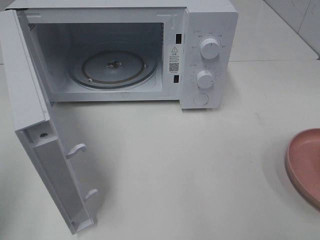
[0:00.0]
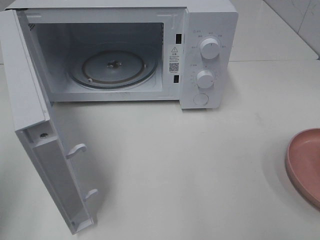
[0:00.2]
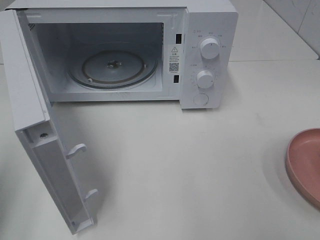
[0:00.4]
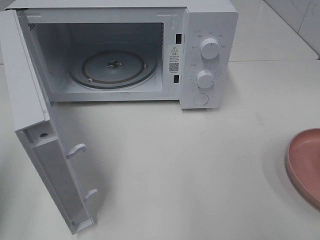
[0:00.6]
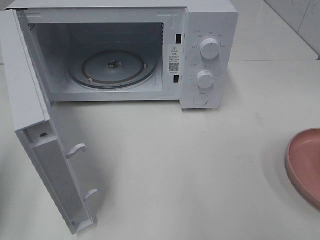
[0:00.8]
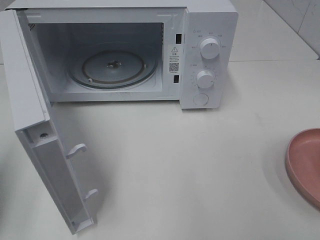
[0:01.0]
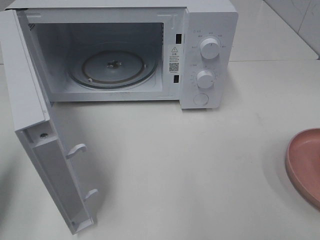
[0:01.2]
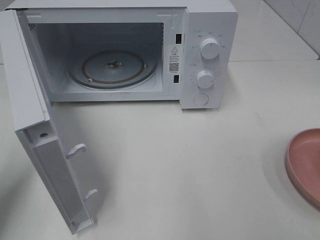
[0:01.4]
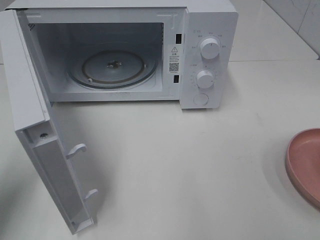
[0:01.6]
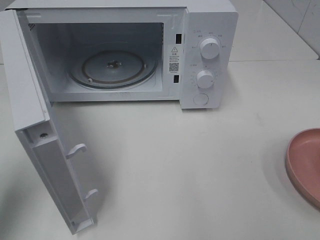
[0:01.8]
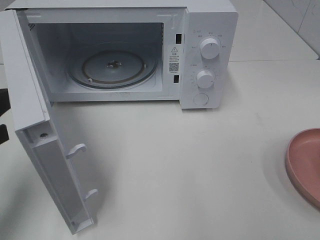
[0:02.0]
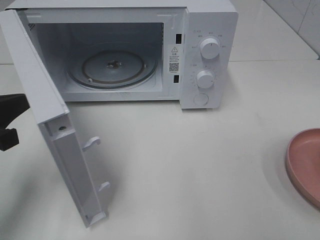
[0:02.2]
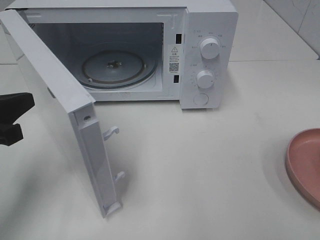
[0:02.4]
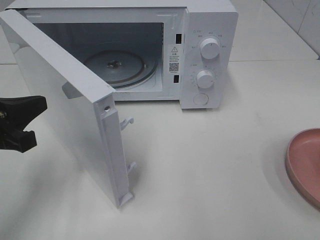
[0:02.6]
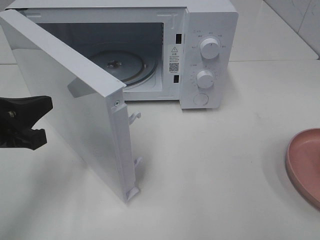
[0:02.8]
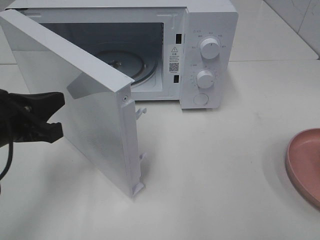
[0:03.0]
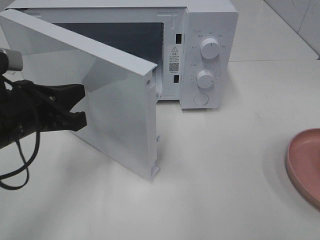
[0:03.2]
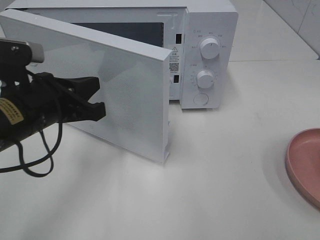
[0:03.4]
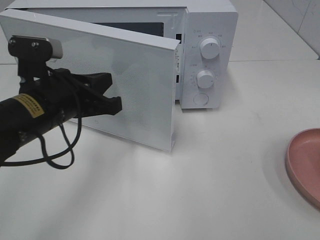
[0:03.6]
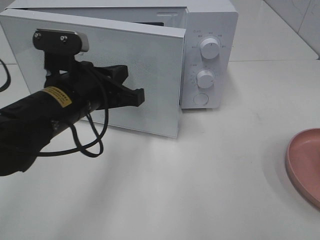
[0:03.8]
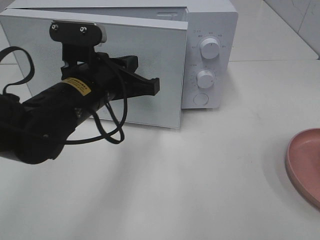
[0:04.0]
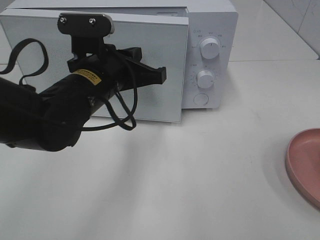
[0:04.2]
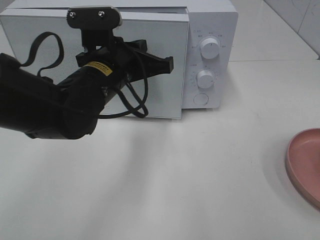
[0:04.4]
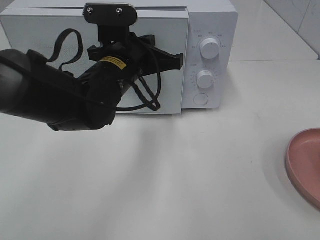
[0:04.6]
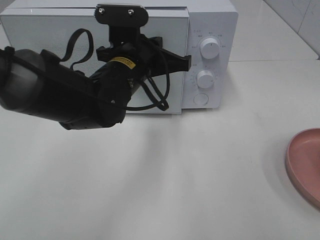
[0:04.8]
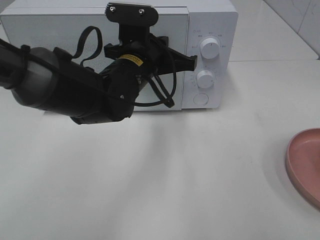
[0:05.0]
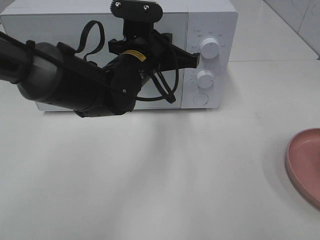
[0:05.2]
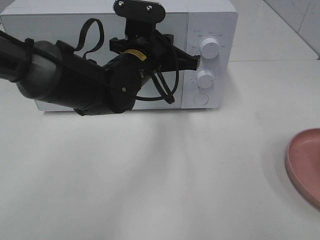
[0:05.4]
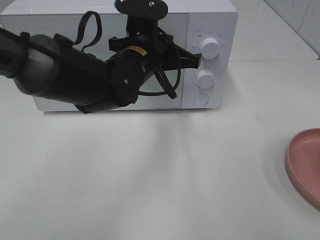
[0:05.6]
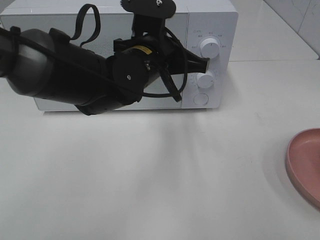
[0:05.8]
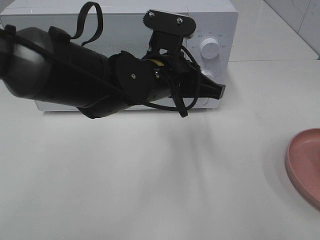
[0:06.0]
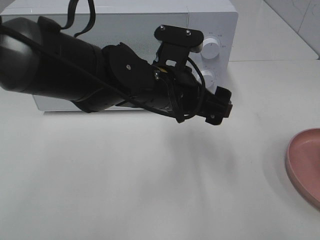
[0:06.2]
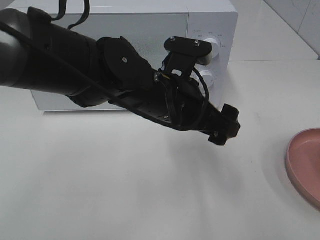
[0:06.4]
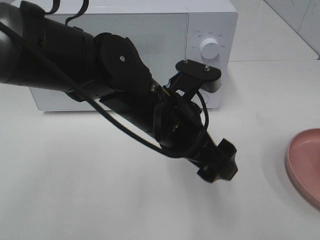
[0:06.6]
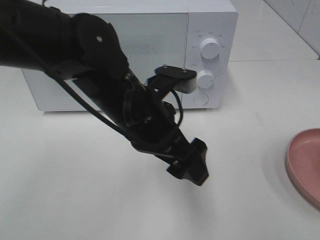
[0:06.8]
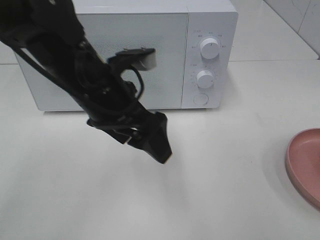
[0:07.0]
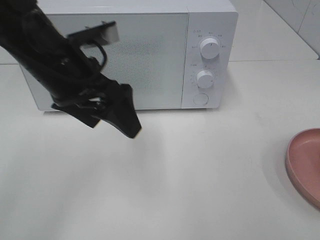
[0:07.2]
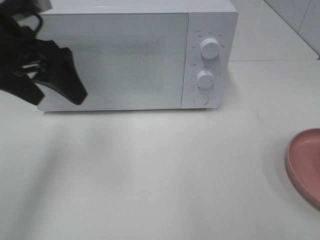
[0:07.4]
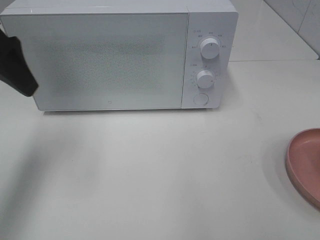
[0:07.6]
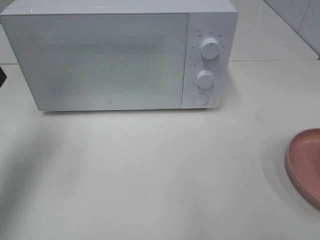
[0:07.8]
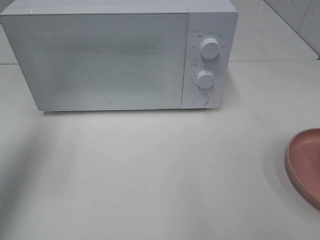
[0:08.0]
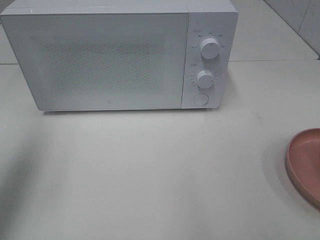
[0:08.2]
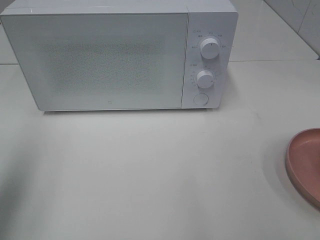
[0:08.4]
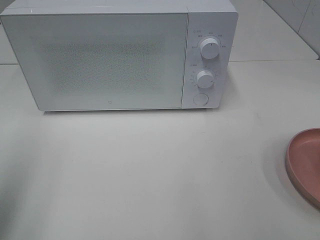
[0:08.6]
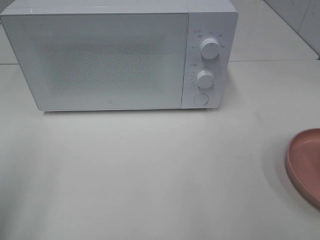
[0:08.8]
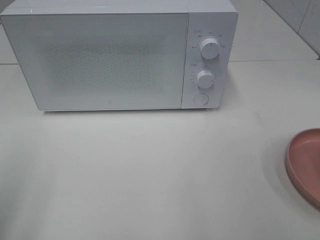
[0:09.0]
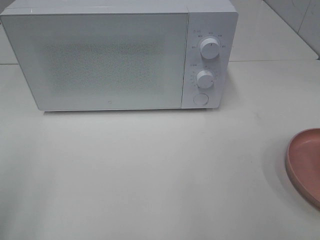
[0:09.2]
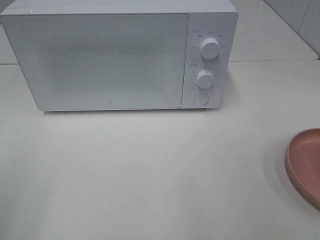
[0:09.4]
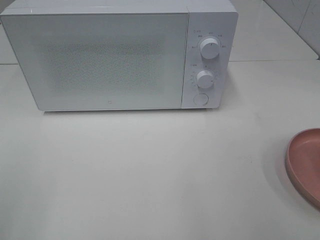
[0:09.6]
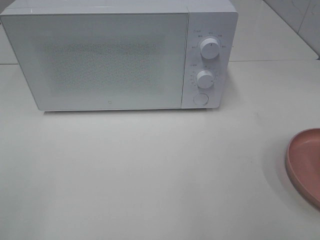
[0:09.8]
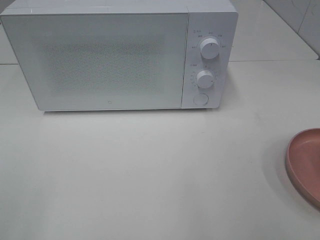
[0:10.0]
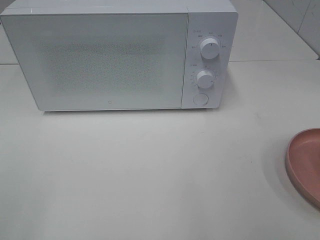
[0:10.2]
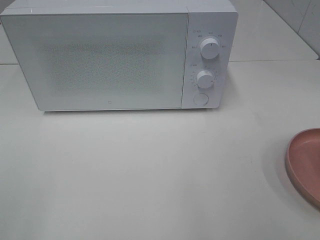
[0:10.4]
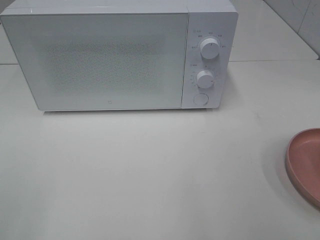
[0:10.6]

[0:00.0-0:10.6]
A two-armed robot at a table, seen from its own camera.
Task of the whole recording: Heat the burger.
Step, 0:00.0 to 0:05.8: Left hand: close the microwave door.
0:00.0 to 0:01.6: The left gripper travels downward and forward by about 10 cm.
0:01.6 to 0:03.0: The left gripper moves to the right, some 10 cm.
0:03.0 to 0:04.6: The left gripper goes about 20 cm to the right and forward.
0:04.6 to 0:06.0: The left gripper heads to the right, covering about 5 cm, and opens its fingers.
0:06.0 to 0:07.6: The left gripper goes about 30 cm to the left and upward, and opens.
0:07.6 to 0:09.0: The left gripper travels backward by about 20 cm.

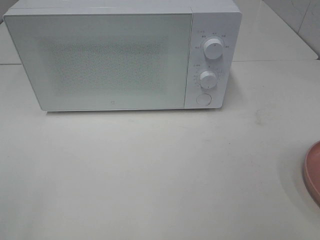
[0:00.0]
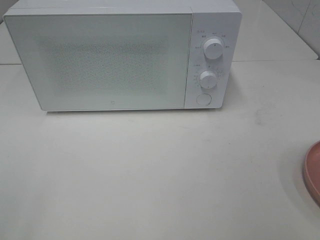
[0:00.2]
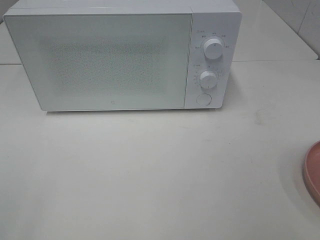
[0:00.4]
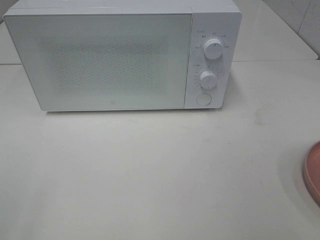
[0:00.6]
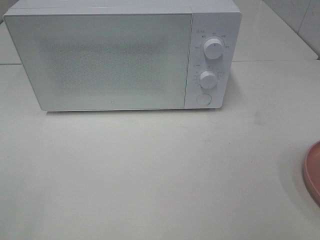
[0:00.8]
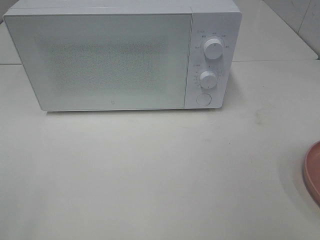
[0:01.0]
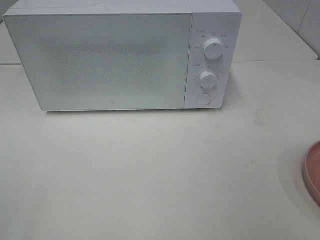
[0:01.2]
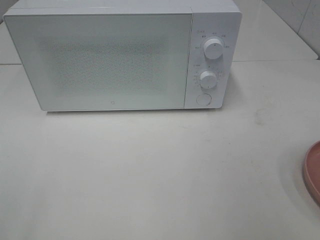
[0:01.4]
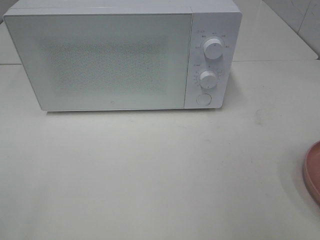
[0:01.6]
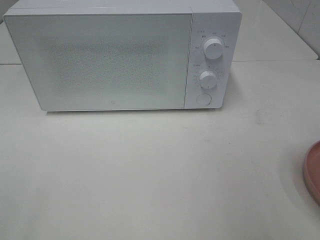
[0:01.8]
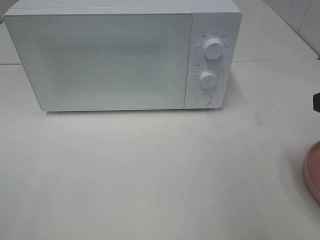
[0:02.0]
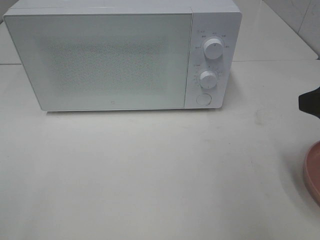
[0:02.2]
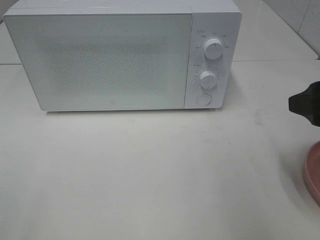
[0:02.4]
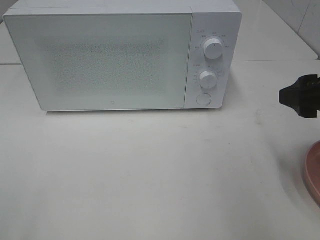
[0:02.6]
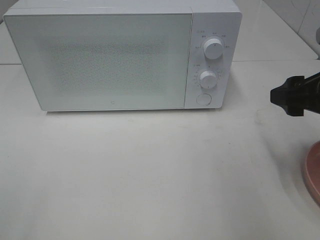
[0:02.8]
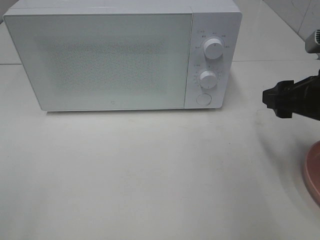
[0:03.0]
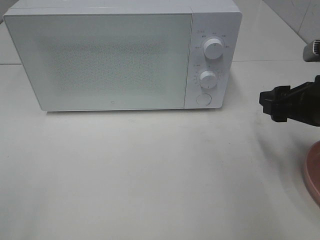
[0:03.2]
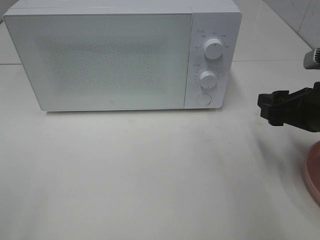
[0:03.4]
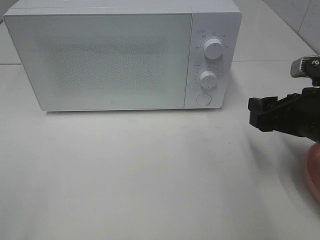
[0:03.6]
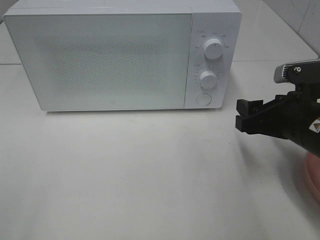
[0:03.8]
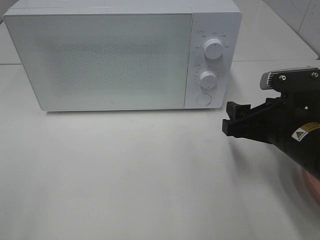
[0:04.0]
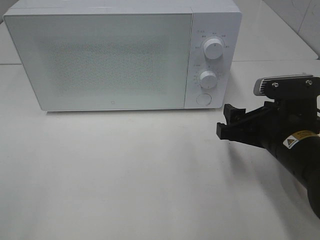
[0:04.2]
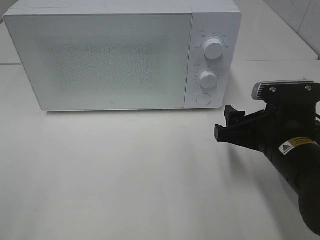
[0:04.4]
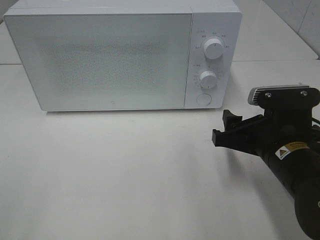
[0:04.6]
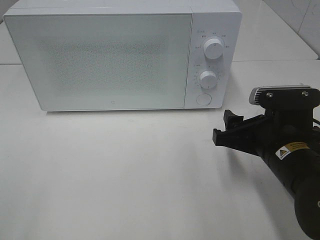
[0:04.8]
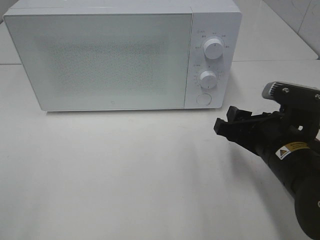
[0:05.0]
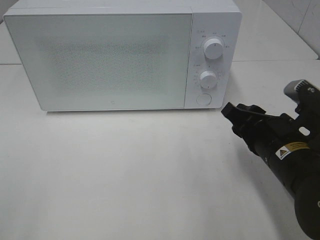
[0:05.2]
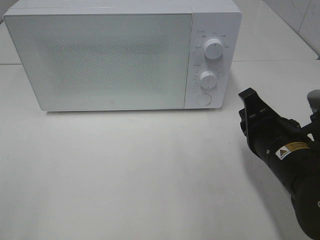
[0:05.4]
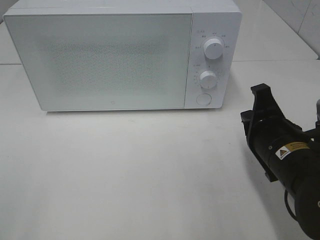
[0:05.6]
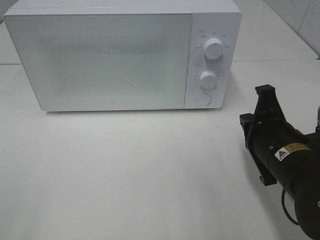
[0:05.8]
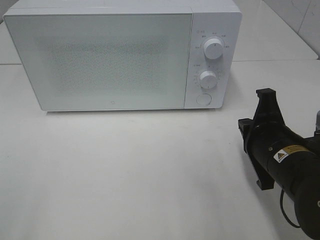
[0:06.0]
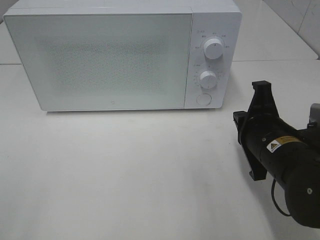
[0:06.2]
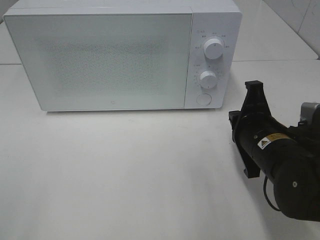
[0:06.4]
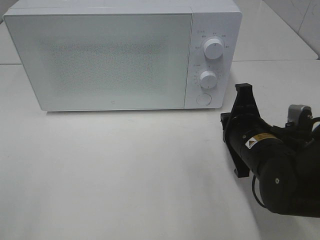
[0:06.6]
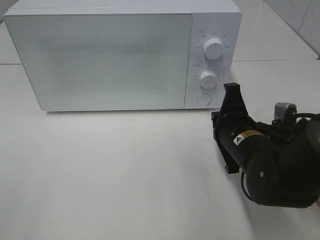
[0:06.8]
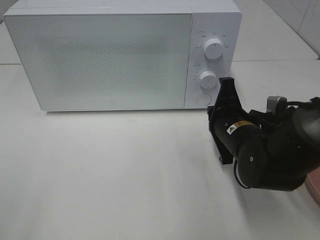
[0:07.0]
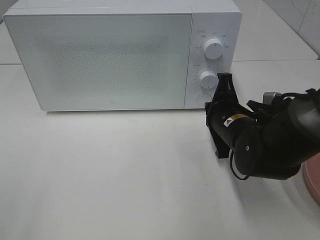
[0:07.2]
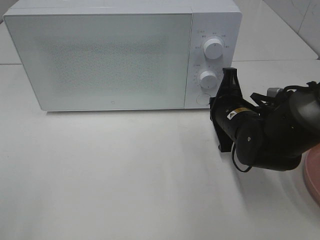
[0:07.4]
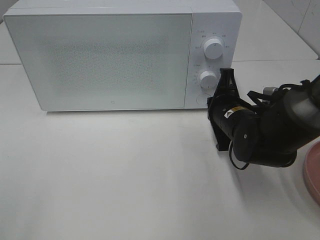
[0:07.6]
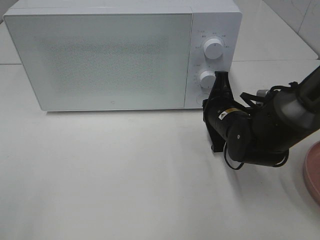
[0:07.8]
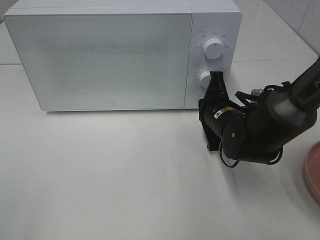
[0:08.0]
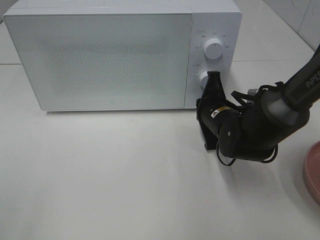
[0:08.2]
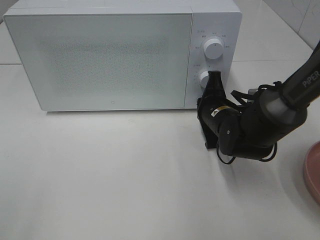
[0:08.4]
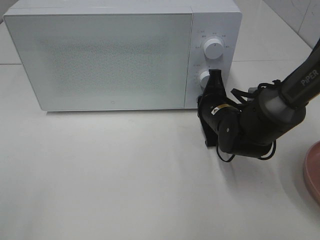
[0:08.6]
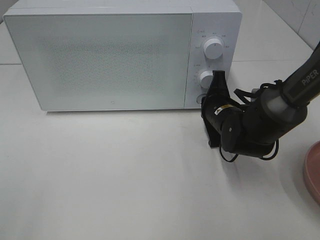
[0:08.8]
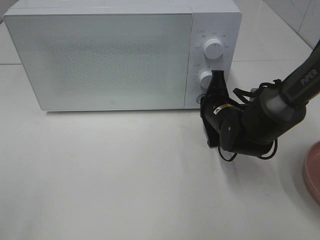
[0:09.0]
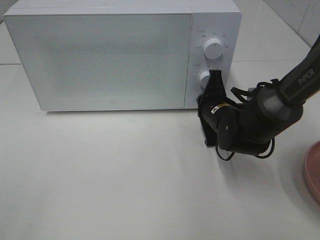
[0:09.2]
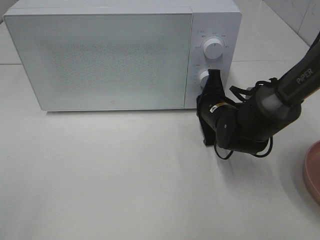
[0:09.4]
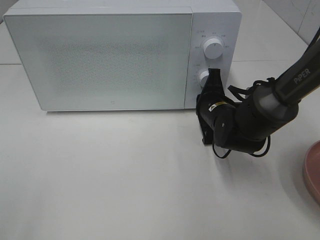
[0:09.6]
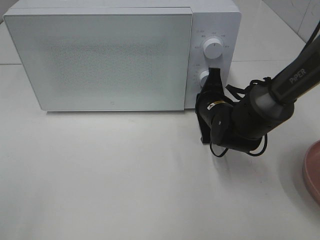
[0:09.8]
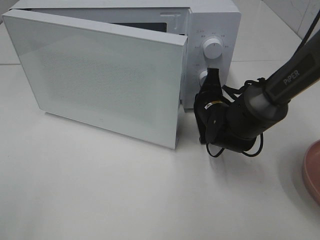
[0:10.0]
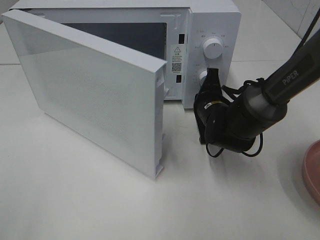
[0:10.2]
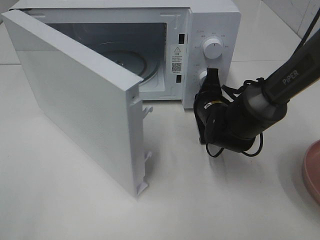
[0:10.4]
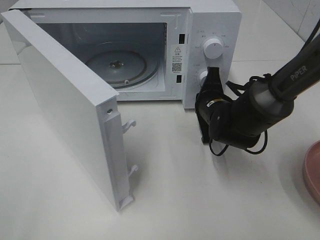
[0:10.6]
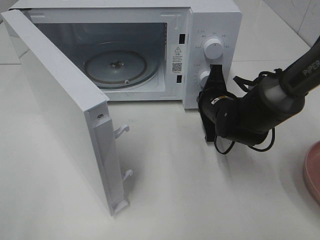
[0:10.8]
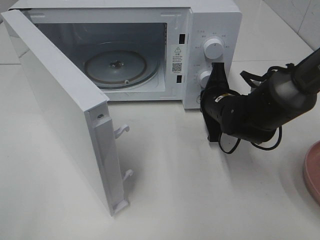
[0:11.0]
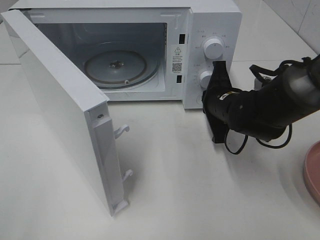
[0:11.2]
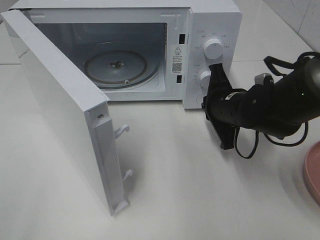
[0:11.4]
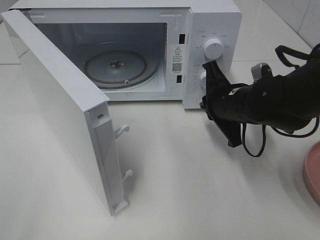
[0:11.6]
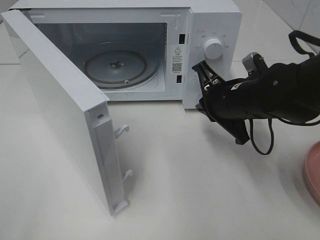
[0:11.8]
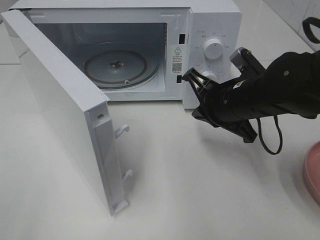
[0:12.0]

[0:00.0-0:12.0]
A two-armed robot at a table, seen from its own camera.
Task of the whole recording: Heat the burger.
Step, 0:00.0 to 0:11.0: Right hand: press the switch.
0:01.6 to 0:03.0: The right gripper travels forward and downward by approximately 15 cm.
0:03.0 to 0:04.4: The right gripper goes approximately 10 cm to the left and downward.
0:04.4 to 0:06.0: The right gripper closes up.
0:06.0 to 0:07.6: The right gripper heads forward, covering some 10 cm.
0:07.6 to 0:09.0: There are only small adjustments of the grippers.
0:10.4 to 0:12.0: The right gripper goes roughly 10 cm upward and backward.
